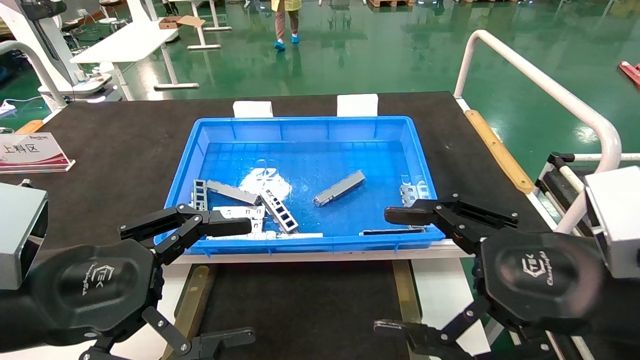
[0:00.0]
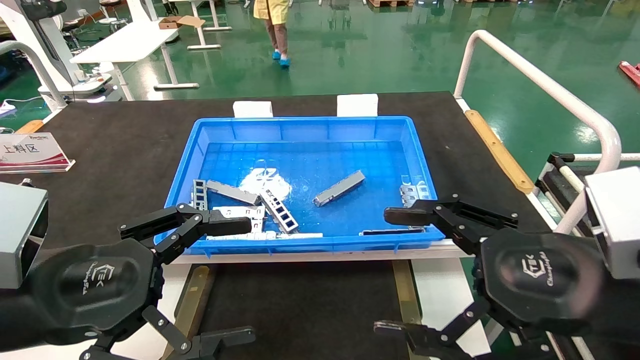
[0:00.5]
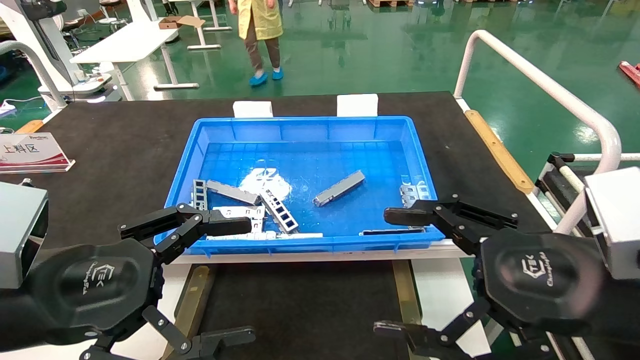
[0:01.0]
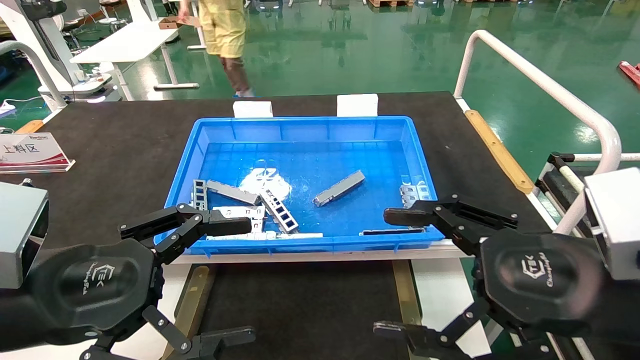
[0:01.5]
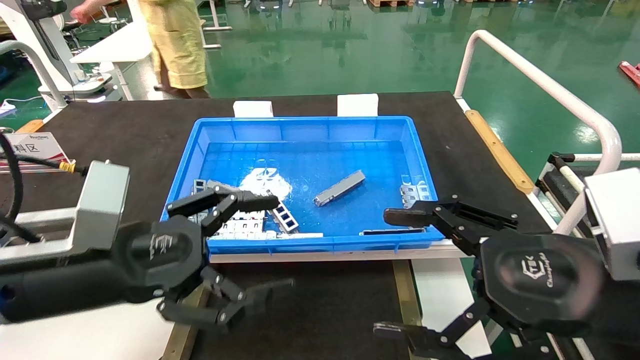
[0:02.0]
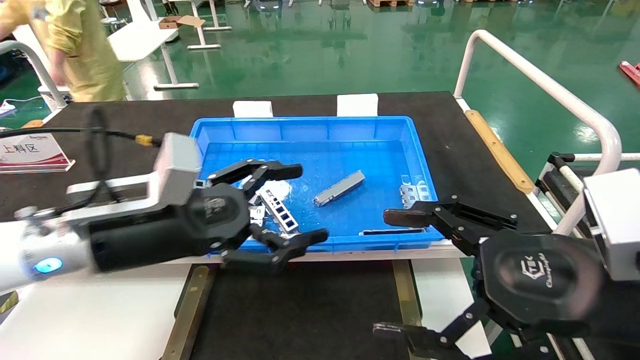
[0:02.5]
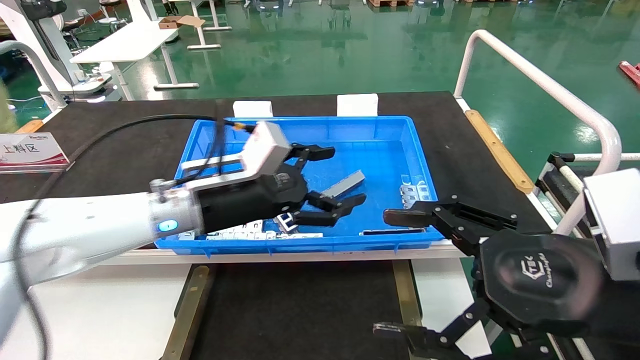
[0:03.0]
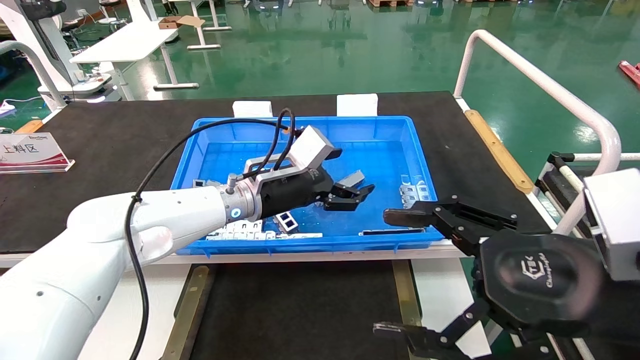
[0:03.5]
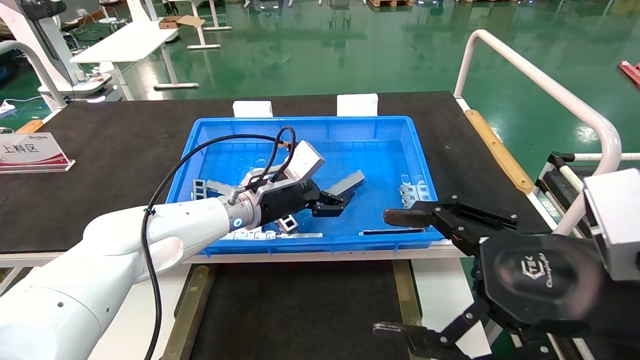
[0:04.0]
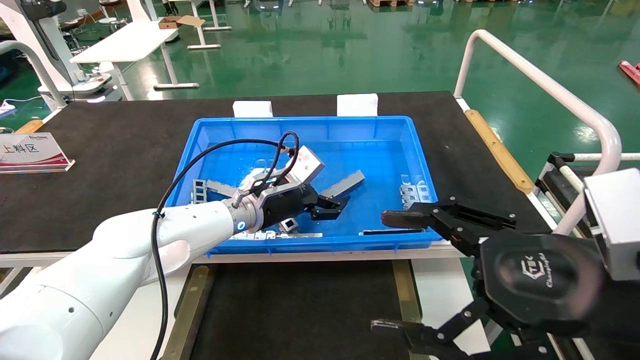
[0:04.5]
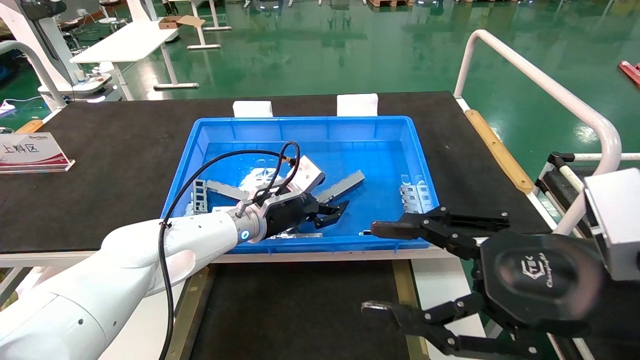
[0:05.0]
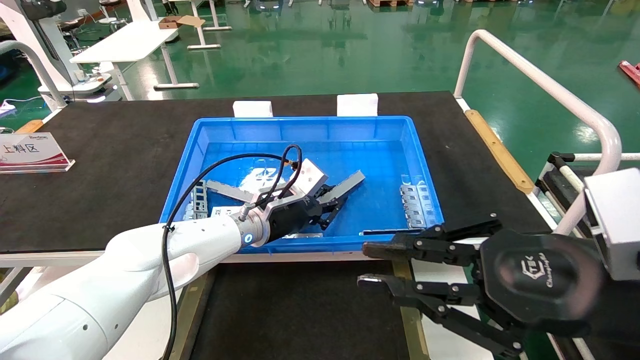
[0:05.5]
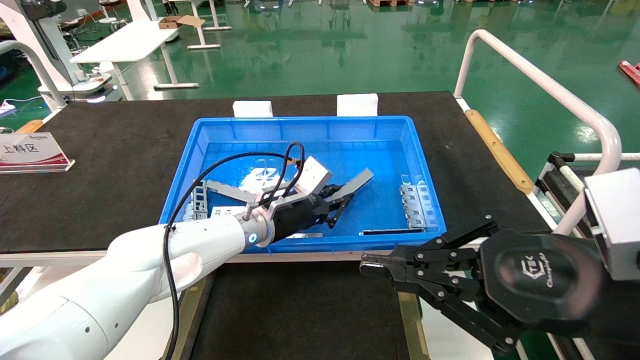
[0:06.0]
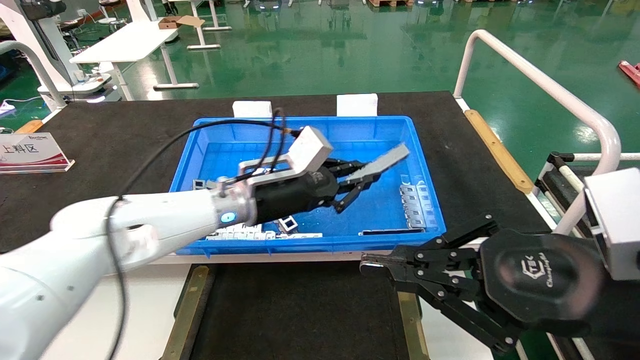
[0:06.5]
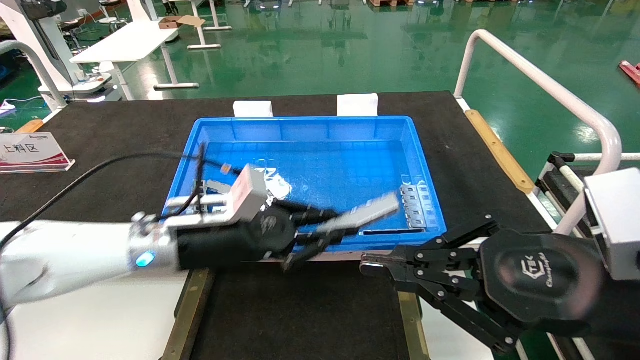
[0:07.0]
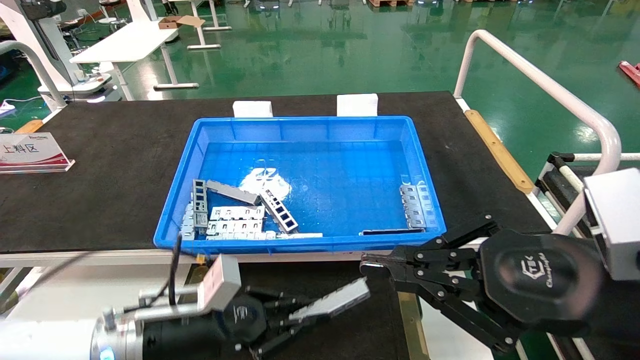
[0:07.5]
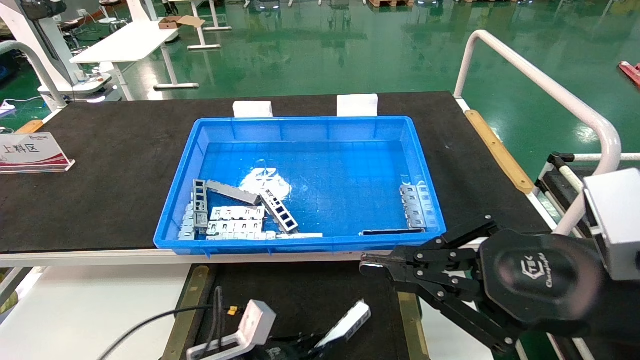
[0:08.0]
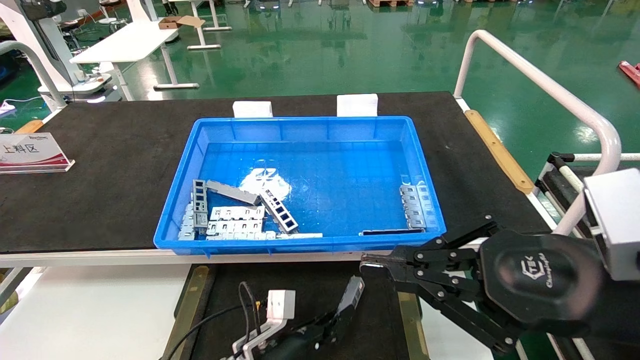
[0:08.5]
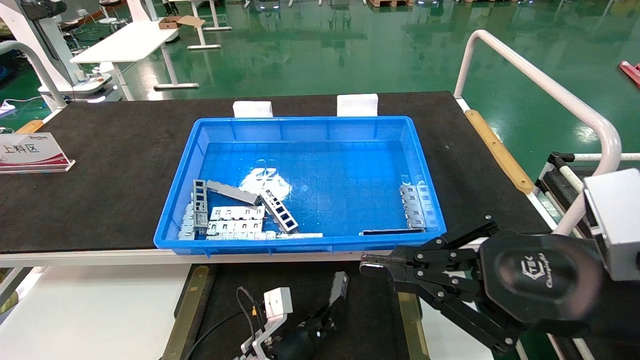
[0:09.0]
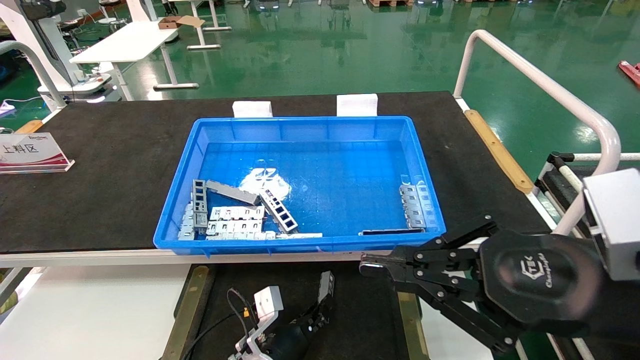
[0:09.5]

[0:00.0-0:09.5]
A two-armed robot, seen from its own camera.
Task of the whole recording: Grasp the part with one hand and place it on the black container.
Step, 0:02.0 to 0:05.5: Pick up the front USB bracket from the feeding area.
0:00.0 to 0:02.0: The left gripper ends up roughly 5 cm from where it was.
0:02.0 to 0:04.0: The left gripper shifts approximately 25 cm forward and to the right.
0:04.0 to 0:05.5: The right gripper closes; the left gripper closes.
0:05.5 to 0:07.5: The left gripper is displaced backward, to the left and downward by some 20 cm.
0:07.5 to 0:09.5: The left gripper goes approximately 20 cm downward, to the right and forward.

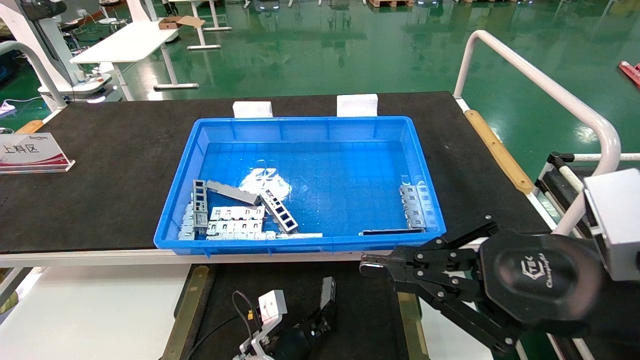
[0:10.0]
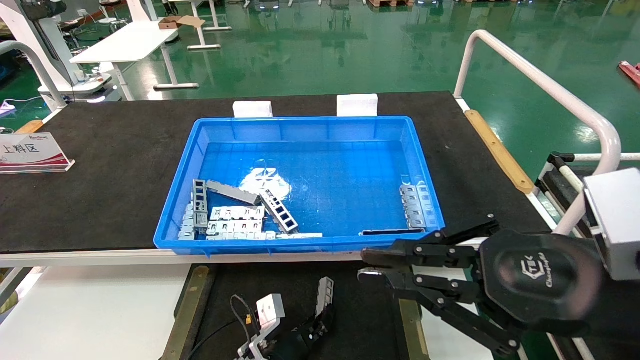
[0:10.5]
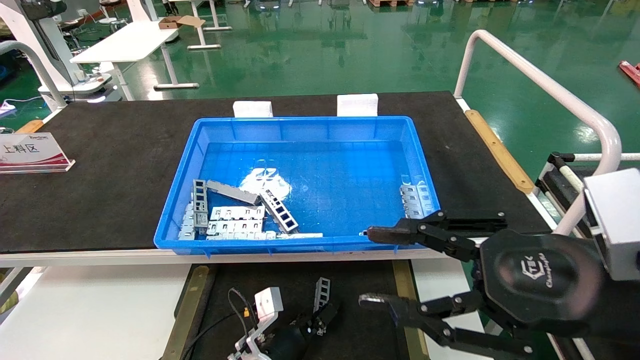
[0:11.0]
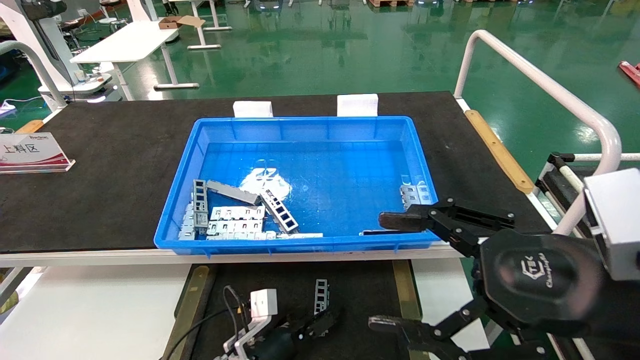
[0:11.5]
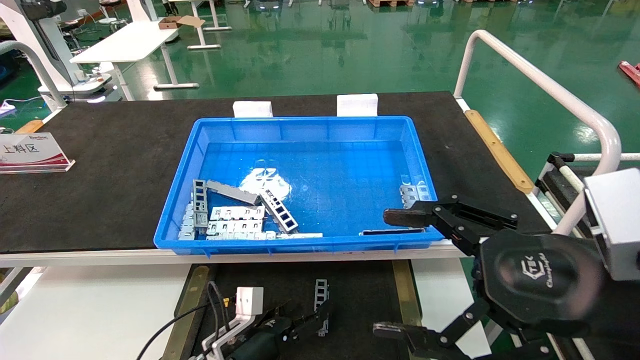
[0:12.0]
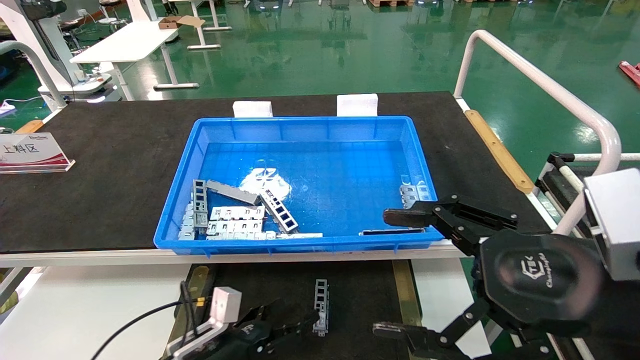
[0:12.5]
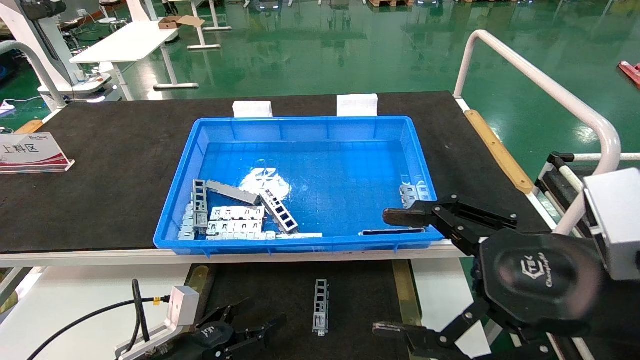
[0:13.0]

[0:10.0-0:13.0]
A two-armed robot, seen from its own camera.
Task of the whole recording: Grasp the part with one hand and place it on the black container.
0:10.0 to 0:11.5: The right gripper opens, while the left gripper opens up.
0:11.5 to 0:13.0: The left gripper shifts roughly 15 cm to the left, backward and upward.

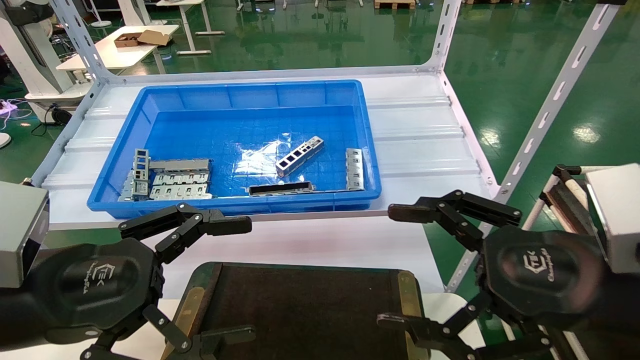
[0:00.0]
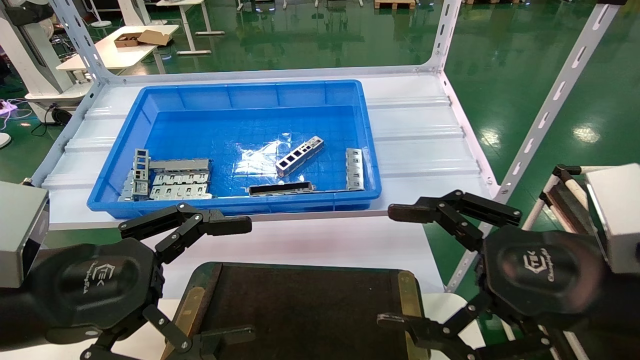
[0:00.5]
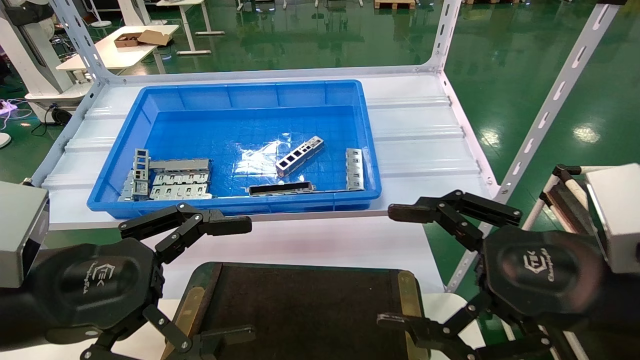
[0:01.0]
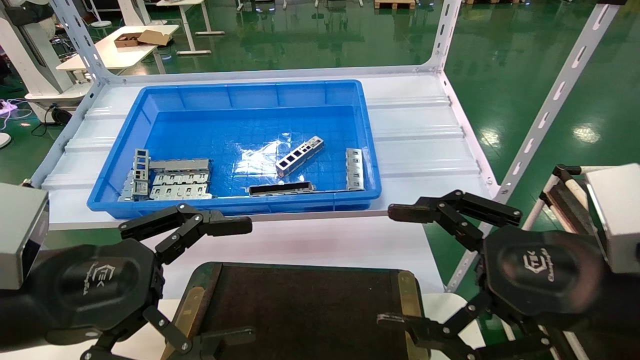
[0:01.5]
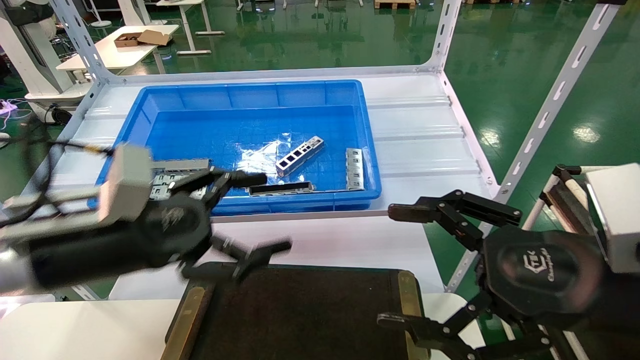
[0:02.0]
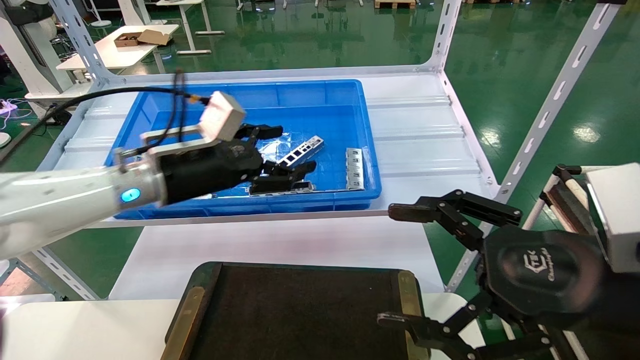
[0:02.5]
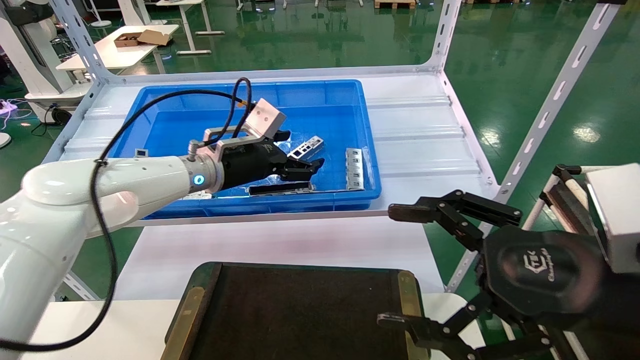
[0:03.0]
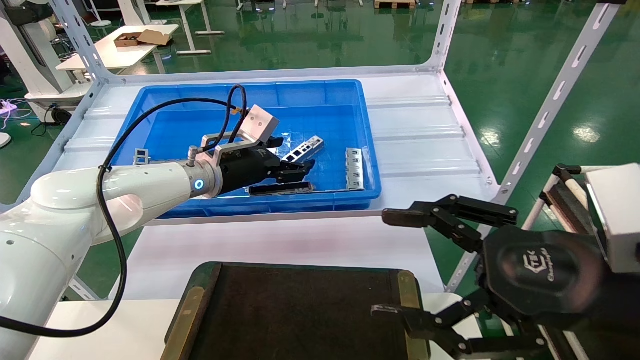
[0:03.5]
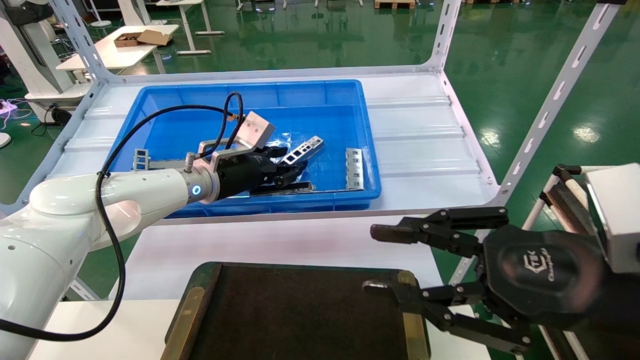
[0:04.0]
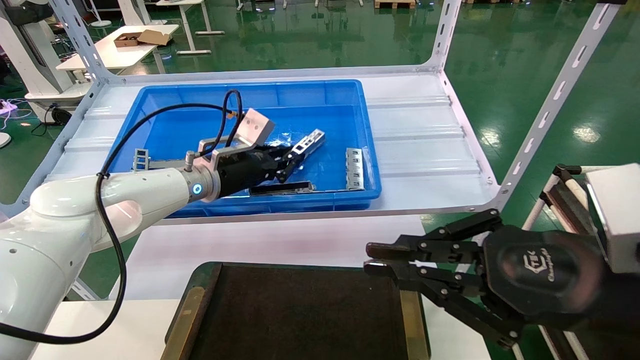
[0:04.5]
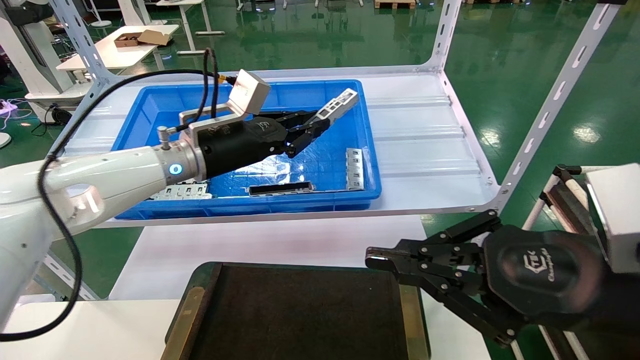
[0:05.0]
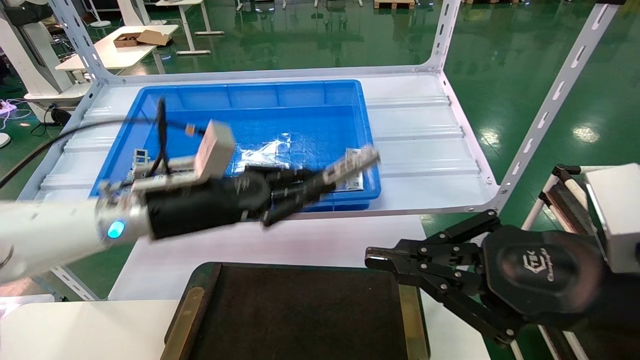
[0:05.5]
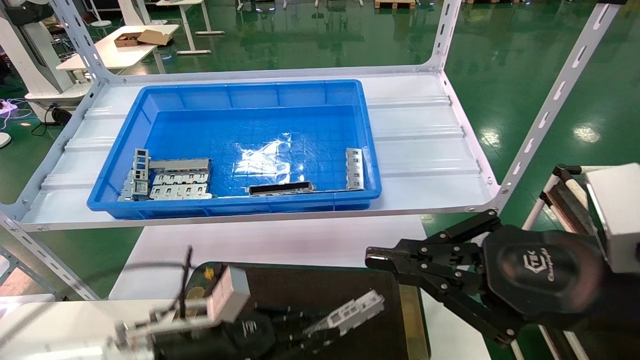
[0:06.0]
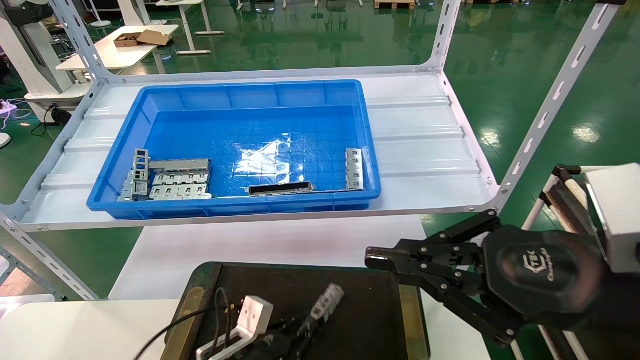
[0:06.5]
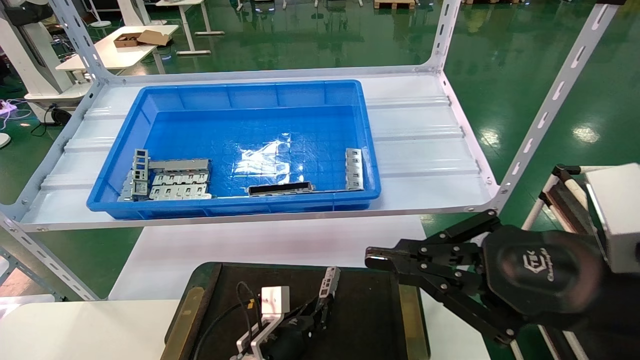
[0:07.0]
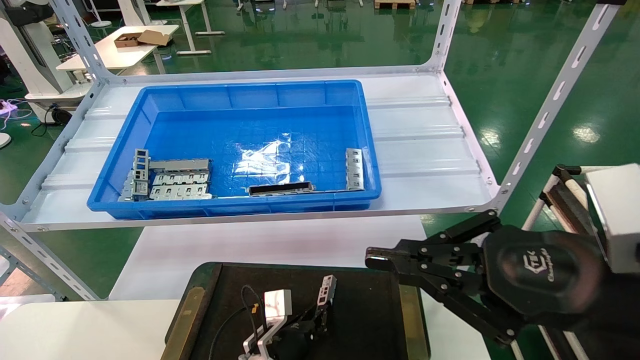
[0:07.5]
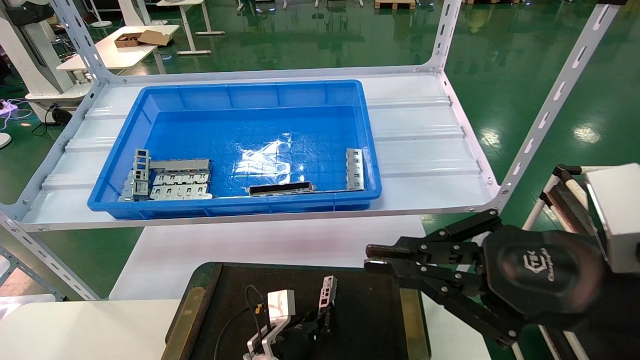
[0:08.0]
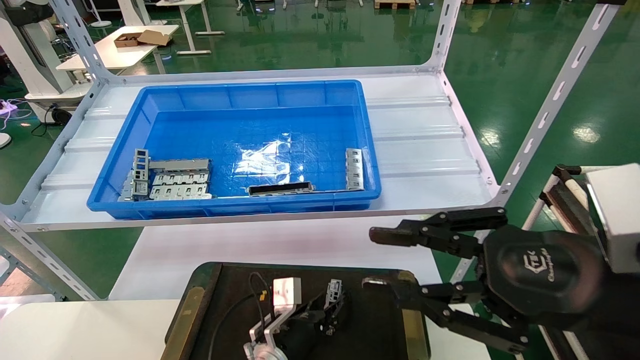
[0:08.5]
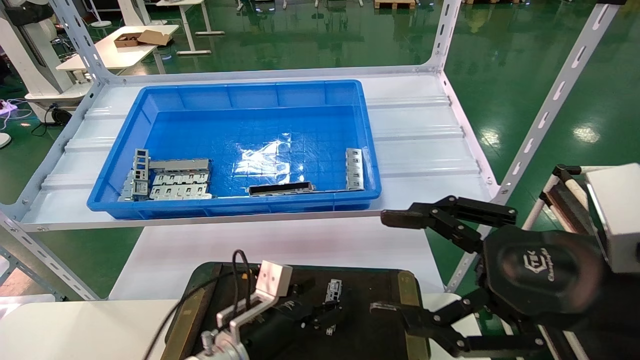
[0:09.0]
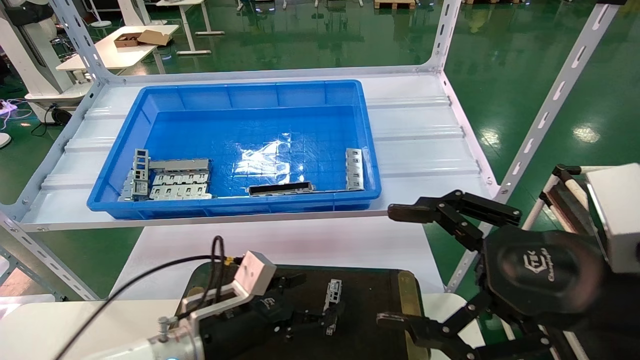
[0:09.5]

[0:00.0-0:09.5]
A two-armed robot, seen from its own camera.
Task of the whole recording: Grasp the part with one hand and place it on the black container.
Step, 0:01.0 to 0:04.0: Pick up the front USB bracket from the feeding area.
Step, 0:04.5 to 0:08.0: Place the front USB bracket into the box.
0:00.0 to 0:02.0: The left gripper shifts about 10 cm forward.
0:02.0 to 0:04.0: The right gripper closes its fingers, while the left gripper goes roughly 20 cm forward, and closes its fingers.
0:04.0 to 0:05.5: The left gripper travels backward by some 15 cm, and closes its fingers; the right gripper closes up.
0:05.5 to 0:07.5: The left gripper goes about 30 cm downward.
0:07.5 to 0:09.5: The left gripper goes some 15 cm upward, to the left and backward, and opens up, while the right gripper opens up.
